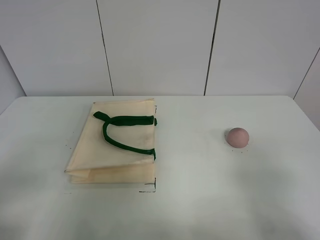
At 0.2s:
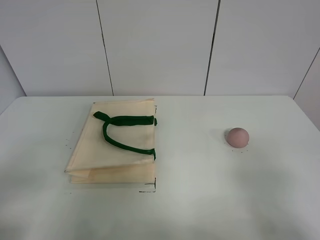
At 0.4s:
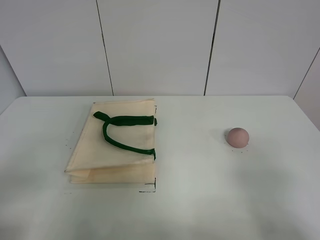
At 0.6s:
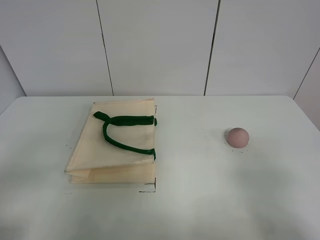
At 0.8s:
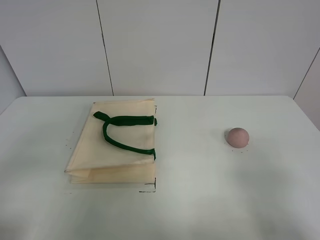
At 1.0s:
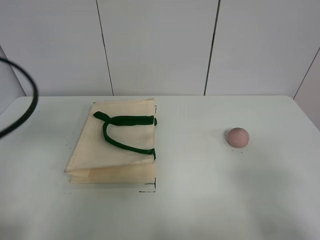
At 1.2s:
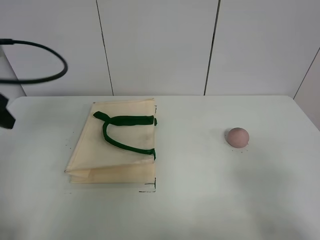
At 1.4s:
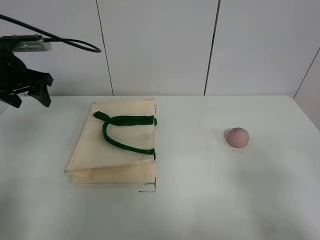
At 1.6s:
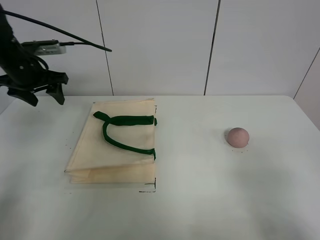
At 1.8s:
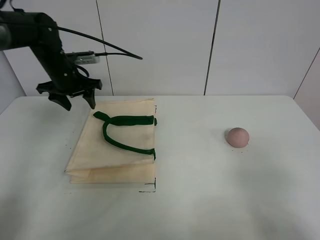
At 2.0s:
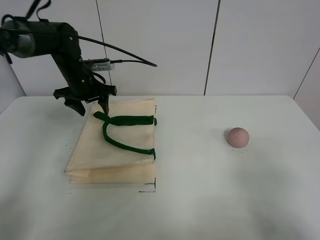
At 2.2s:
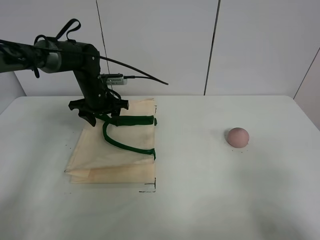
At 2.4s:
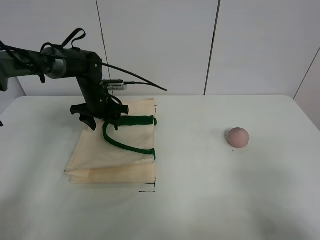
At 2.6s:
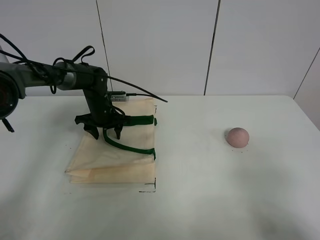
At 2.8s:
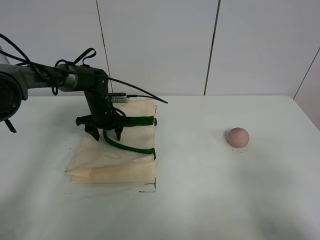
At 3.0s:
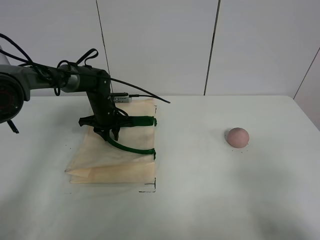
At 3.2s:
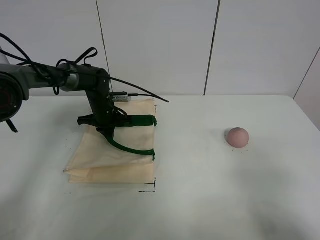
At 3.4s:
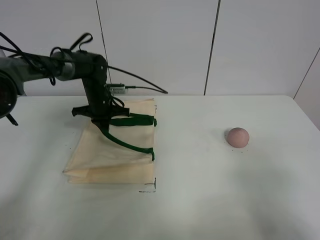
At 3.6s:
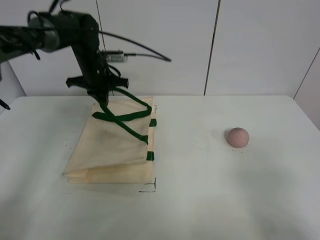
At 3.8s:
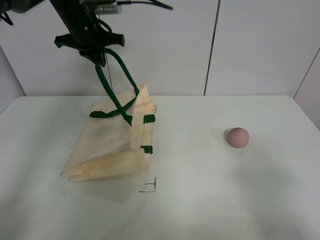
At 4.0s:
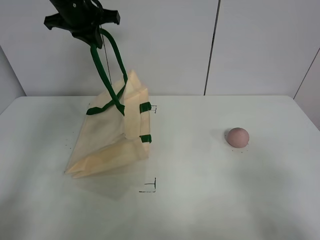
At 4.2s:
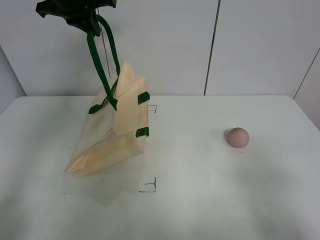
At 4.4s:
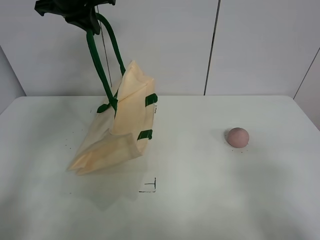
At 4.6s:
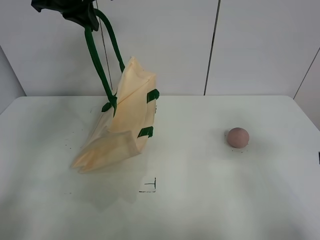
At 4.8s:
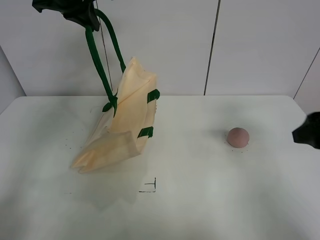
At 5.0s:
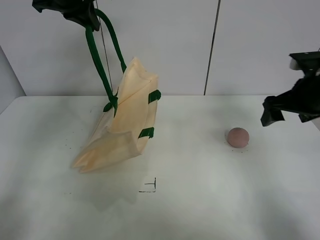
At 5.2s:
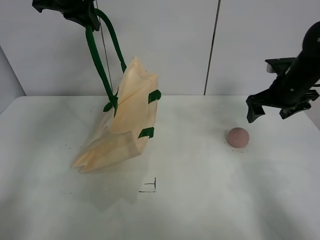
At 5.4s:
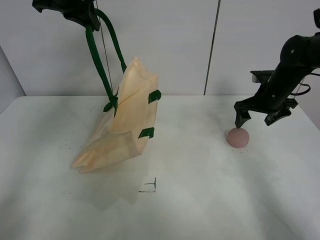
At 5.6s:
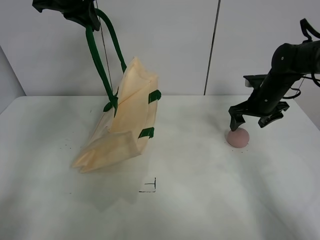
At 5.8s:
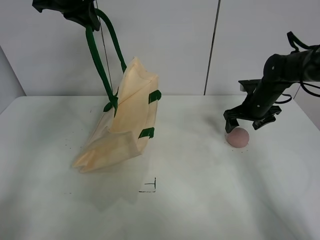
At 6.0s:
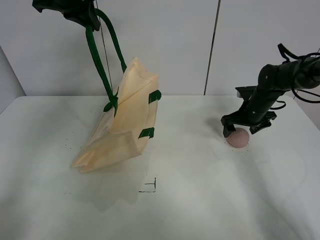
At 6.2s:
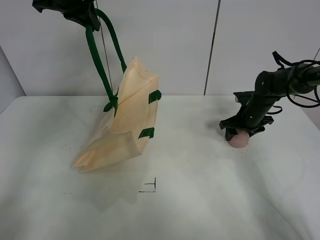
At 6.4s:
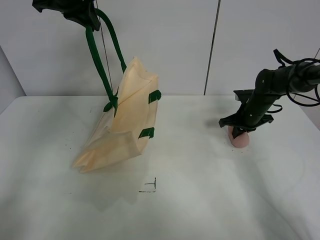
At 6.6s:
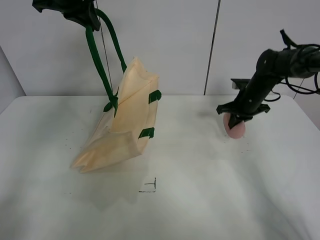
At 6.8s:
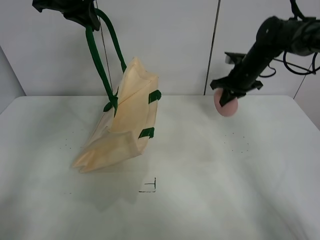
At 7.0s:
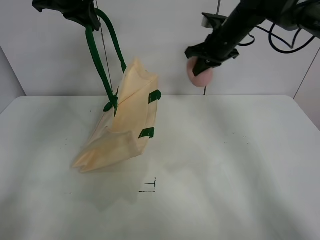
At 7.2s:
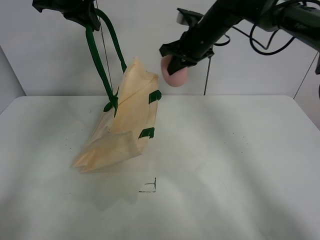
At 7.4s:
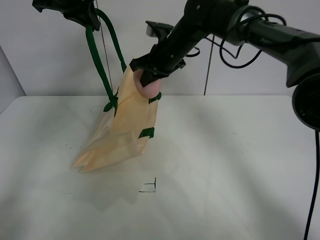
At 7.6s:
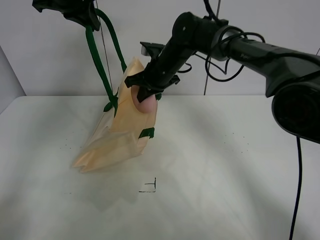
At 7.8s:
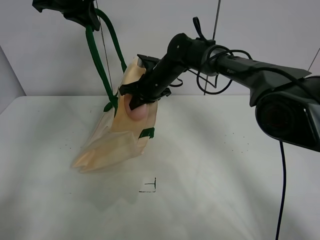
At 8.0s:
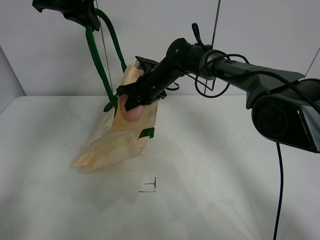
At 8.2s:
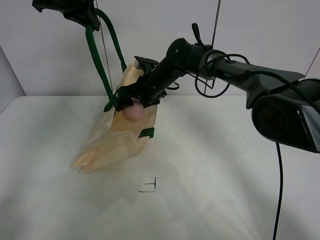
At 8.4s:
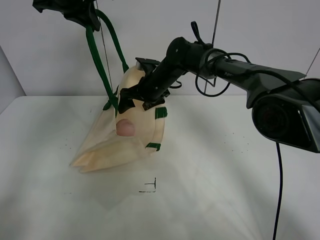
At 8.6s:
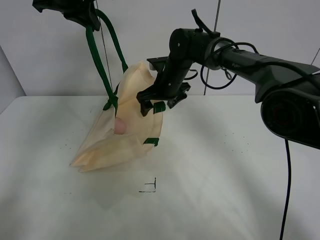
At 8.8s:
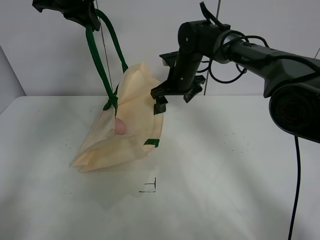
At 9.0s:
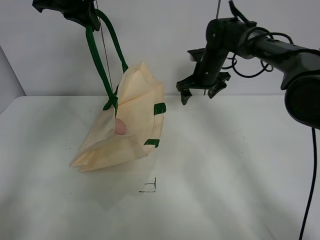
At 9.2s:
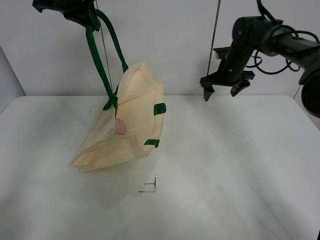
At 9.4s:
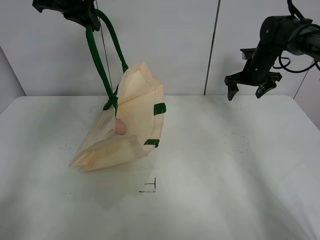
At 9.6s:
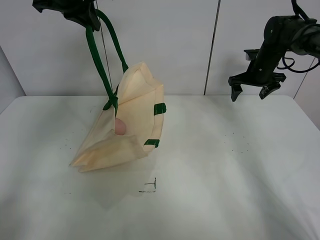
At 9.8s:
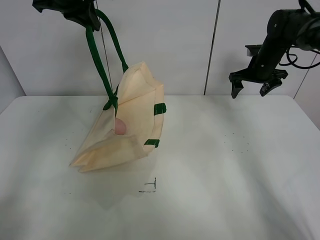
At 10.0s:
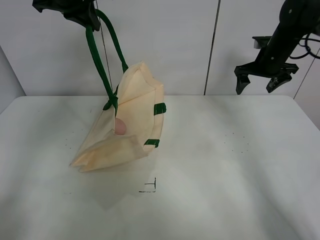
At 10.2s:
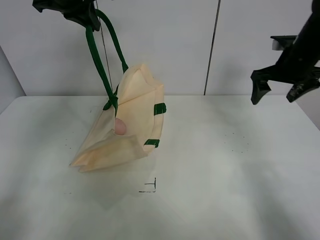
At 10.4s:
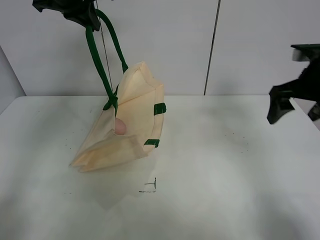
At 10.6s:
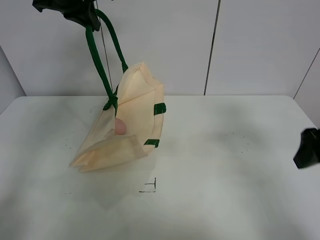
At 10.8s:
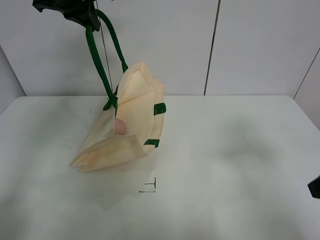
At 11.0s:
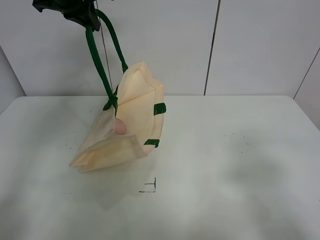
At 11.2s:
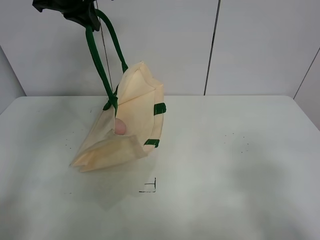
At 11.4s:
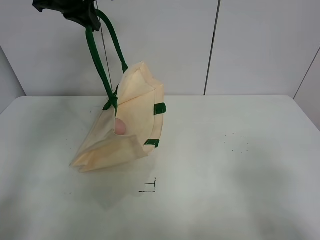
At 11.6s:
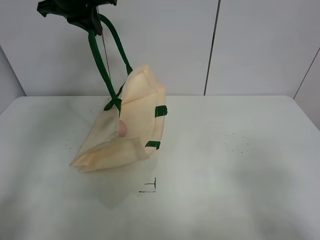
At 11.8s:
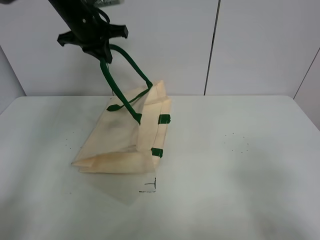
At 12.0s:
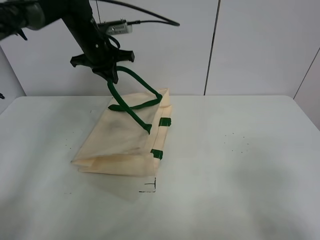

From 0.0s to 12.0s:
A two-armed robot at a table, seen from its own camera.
Task of the whole recording: open the white linen bag and put the peach in the bag.
Step, from 0.0s to 4.2s: Lift the handbag with left gripper.
Step, from 4.4s to 6.4s: Grasp the peach with right gripper.
Step, from 6.6s to 8.4s: Place the peach in the handbag with right gripper.
From 0.0s to 1.6s: The left gripper travels forward by roughly 40 cm.
From 1.6s to 3.0s: The left gripper is displaced downward and to the right by roughly 20 cm, and closes.
From 3.0s to 4.4s: The left gripper goes about 30 cm upward.
From 4.4s to 6.0s: The right gripper heads forward, covering approximately 40 cm.
From 6.0s to 7.6s: The right gripper shifts some 25 cm to the left and upward, and closes up.
From 7.6s to 9.0s: The right gripper shifts about 15 cm to the right and forward, and opens.
From 9.0s to 10.4s: The right gripper shifts about 25 cm backward, to the right and upward.
From 10.4s to 12.0s: The right gripper shifts approximately 30 cm backward. Meanwhile the left gripper moves downward and forward, approximately 15 cm.

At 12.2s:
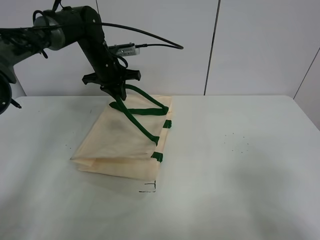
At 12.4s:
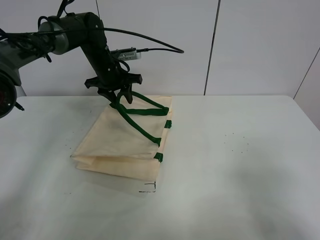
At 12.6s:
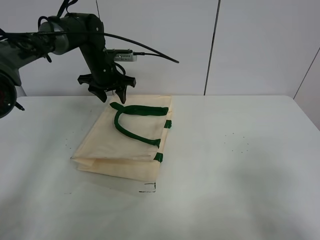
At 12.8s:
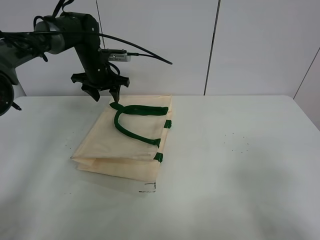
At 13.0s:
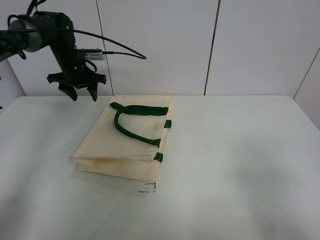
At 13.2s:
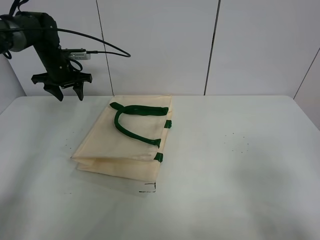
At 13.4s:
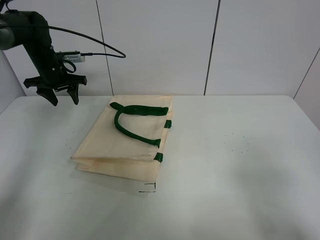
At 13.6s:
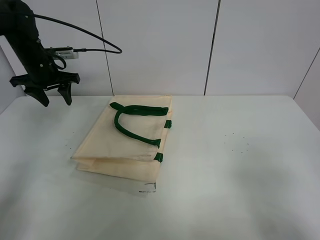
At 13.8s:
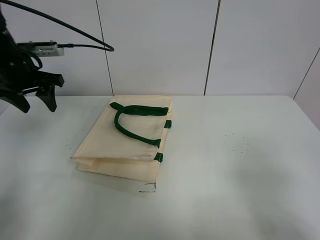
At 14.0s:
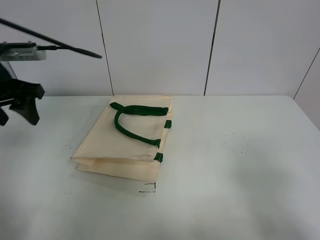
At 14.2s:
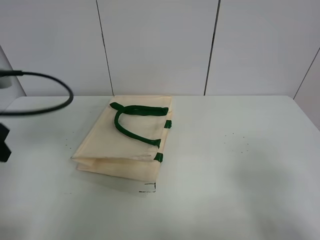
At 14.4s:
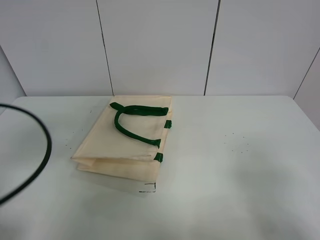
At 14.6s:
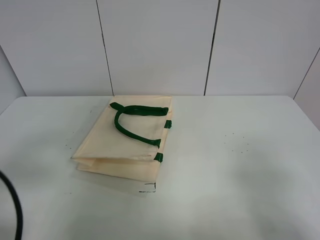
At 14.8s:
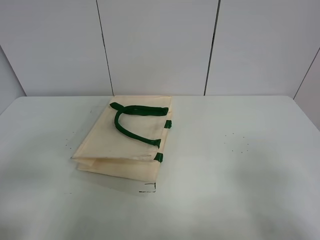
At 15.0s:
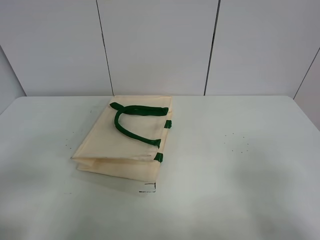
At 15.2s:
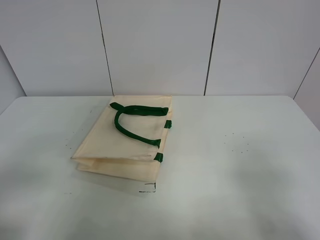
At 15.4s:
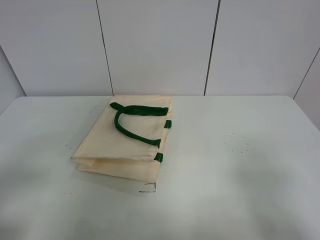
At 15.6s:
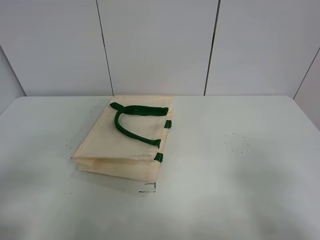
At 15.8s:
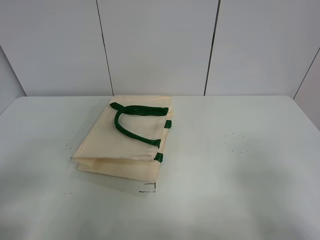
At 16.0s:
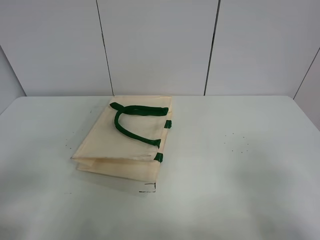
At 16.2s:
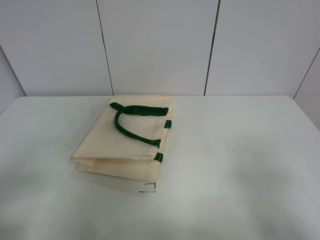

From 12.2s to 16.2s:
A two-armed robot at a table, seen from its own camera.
Task of the whole recording: open the white linen bag and put the peach in the bag.
From 12.2s to 13.6s: The left gripper moves to the left, roughly 15 cm, and opens.
From 13.6s to 14.8s: The left gripper goes about 40 cm backward.
